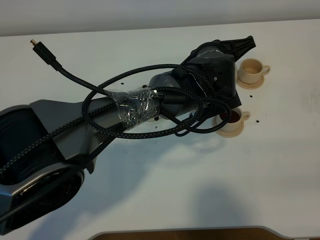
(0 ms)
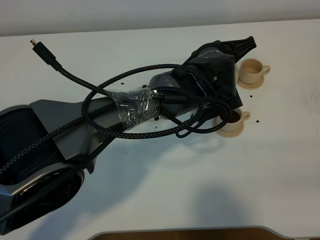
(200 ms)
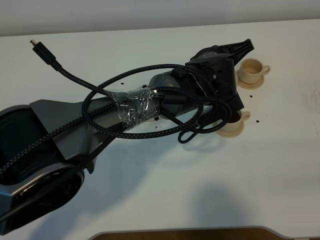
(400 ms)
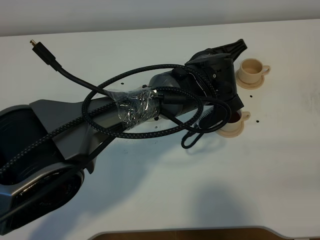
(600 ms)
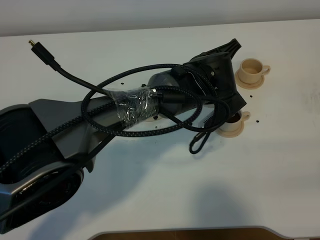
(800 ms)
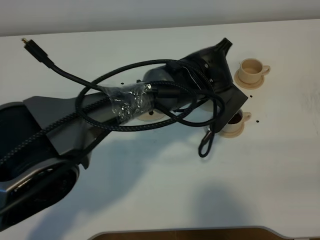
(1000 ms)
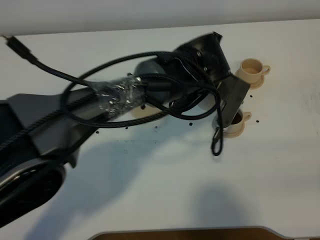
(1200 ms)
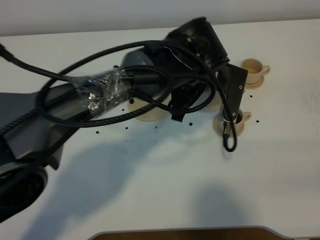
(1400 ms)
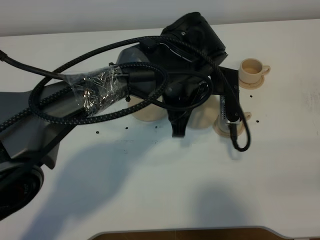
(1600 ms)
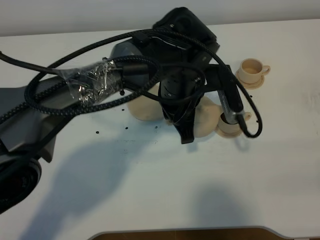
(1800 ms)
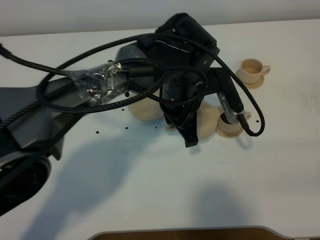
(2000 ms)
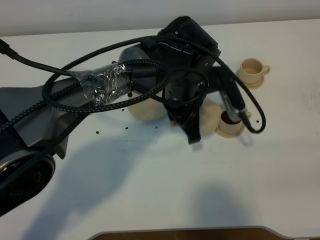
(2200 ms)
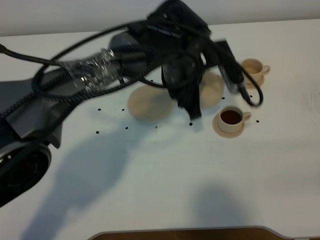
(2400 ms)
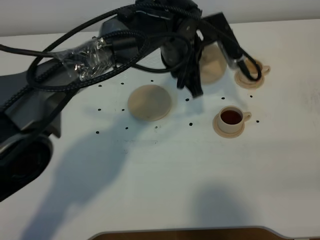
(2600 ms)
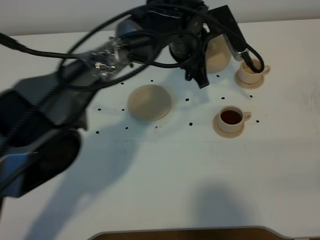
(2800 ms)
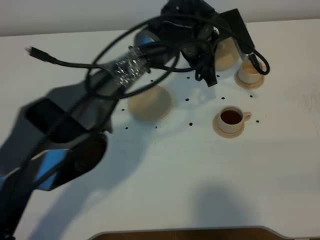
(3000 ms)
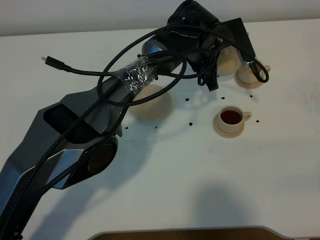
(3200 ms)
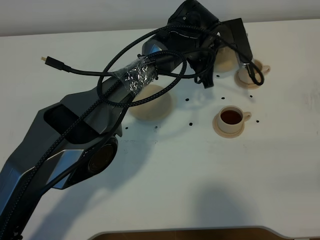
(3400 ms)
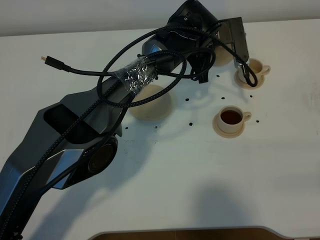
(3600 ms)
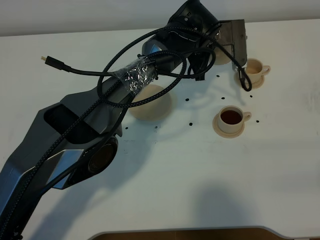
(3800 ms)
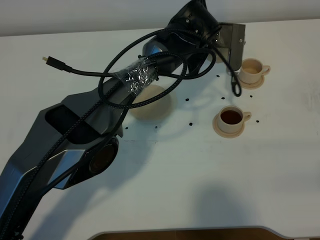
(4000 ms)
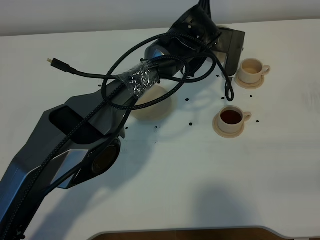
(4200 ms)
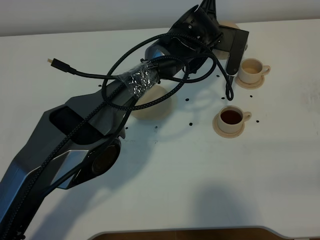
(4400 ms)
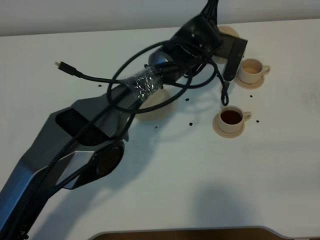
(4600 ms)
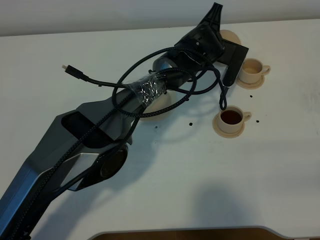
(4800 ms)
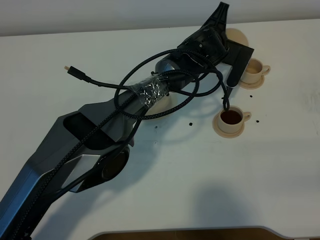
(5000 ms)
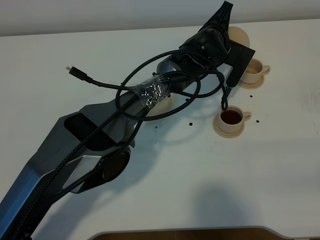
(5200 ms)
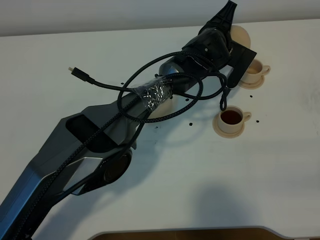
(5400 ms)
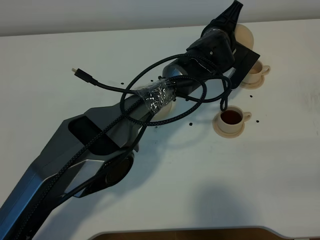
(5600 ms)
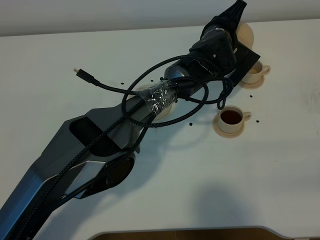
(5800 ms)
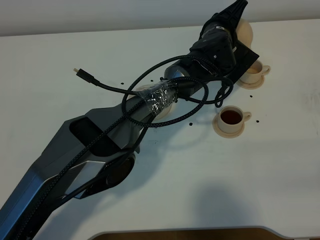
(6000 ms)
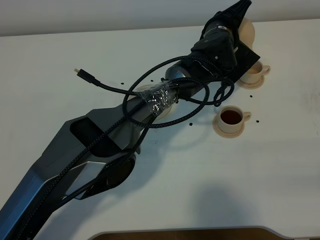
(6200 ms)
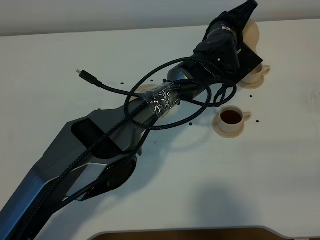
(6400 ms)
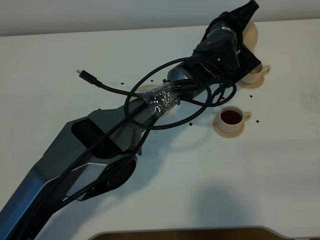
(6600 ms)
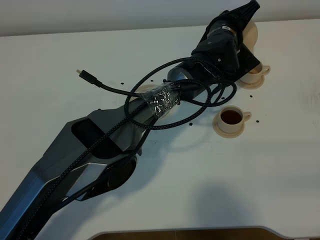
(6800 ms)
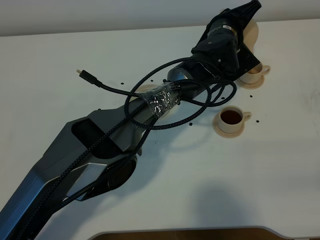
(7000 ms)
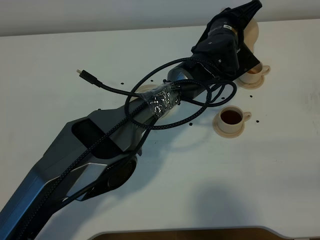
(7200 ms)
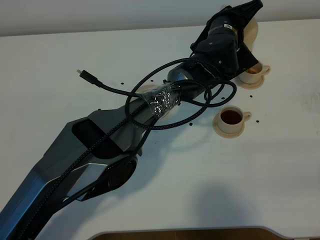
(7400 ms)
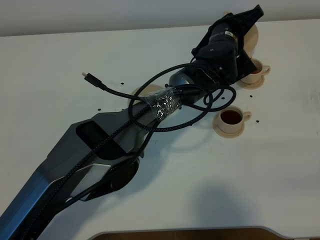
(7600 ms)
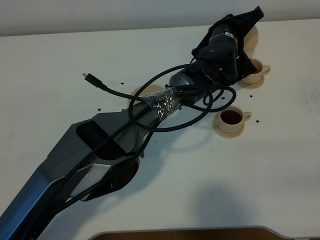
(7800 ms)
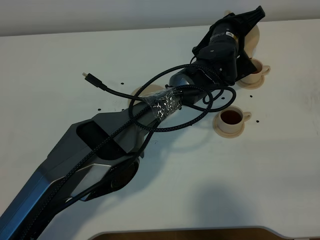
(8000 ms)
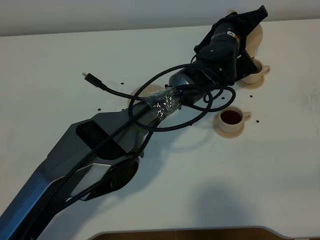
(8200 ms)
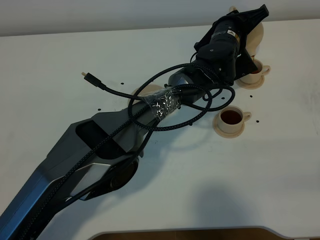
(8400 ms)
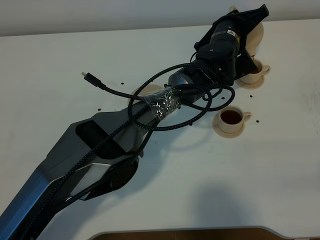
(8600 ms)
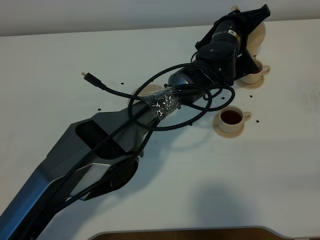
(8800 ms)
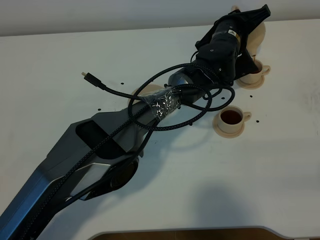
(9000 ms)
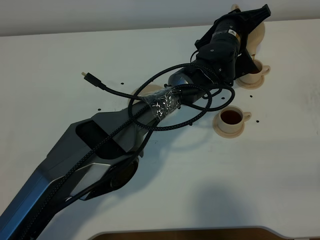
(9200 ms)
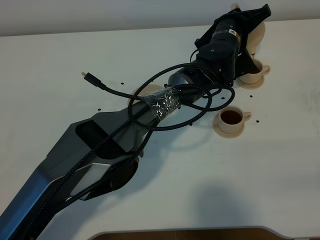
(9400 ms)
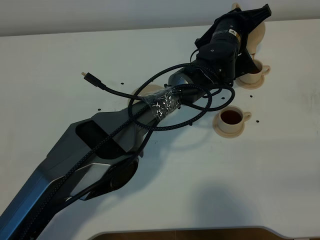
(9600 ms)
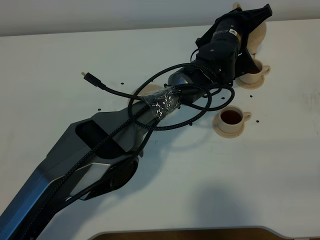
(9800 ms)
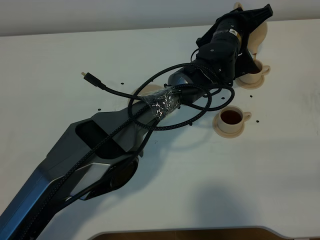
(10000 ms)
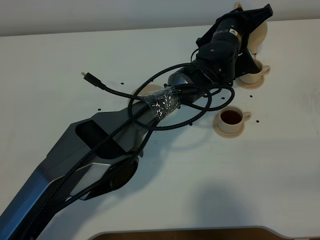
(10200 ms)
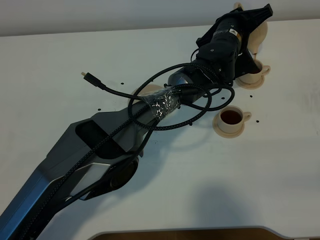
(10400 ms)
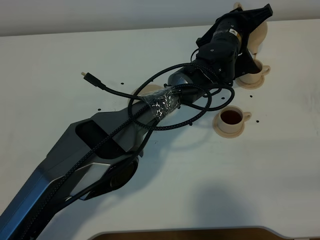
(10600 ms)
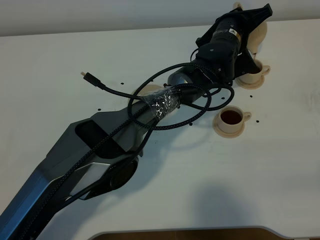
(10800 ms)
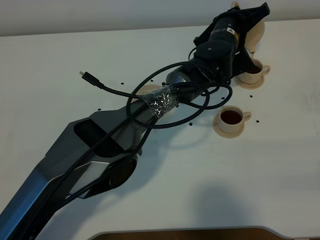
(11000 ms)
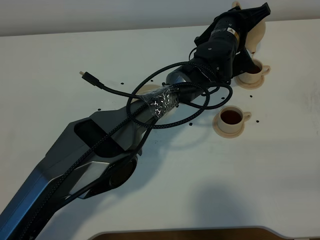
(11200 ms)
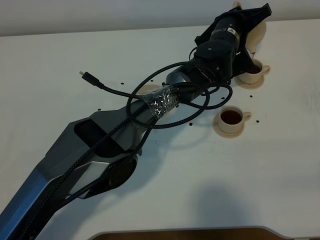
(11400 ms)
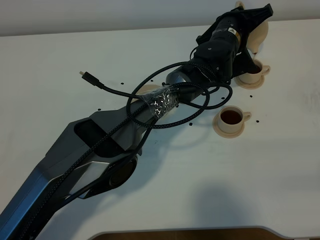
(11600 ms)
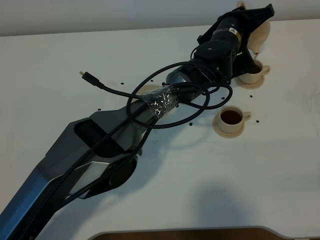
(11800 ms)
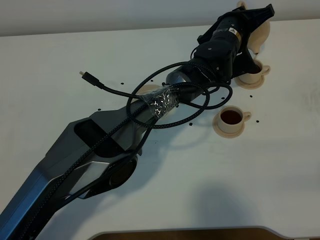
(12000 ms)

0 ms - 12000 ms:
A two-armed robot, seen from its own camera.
Task of the whole recording: grasp the brown teapot and pour the tea into the two brown teacups one by one, put the brown teapot back in its original place.
0 ms - 1600 ms: The left gripper heads to the left, covering approximately 5 cm.
1600 ms - 3000 ms: The left gripper moves forward, approximately 10 cm.
6000 ms - 7600 ms: The grippers move only a little.
7600 ms - 9000 ms: The grippers stay close to where they were, moving slightly.
9000 ms - 10400 ms: Neither gripper changes place.
10400 ms - 12000 ms: Both grippers stay about where they are.

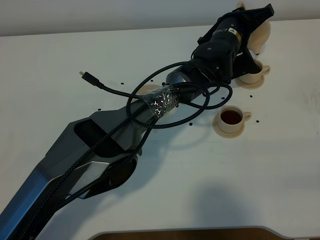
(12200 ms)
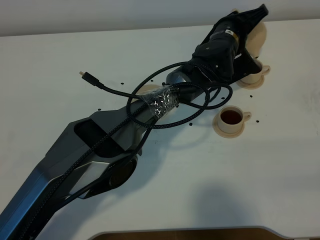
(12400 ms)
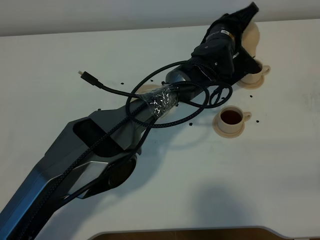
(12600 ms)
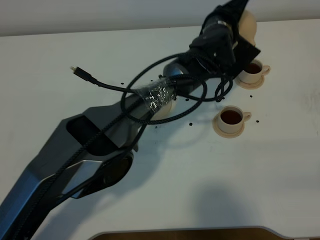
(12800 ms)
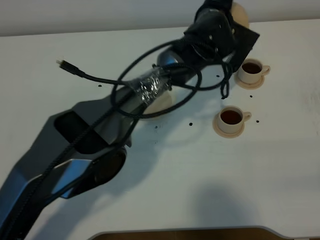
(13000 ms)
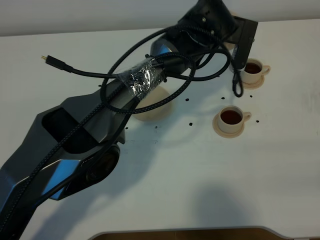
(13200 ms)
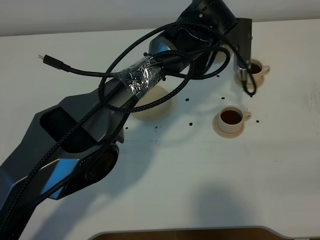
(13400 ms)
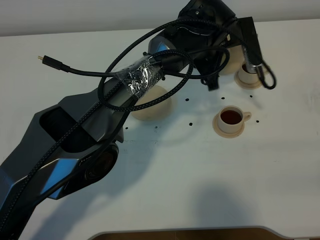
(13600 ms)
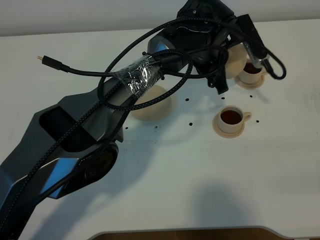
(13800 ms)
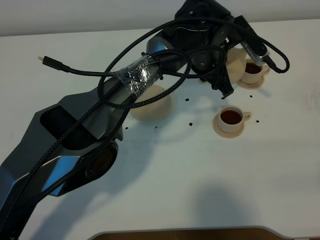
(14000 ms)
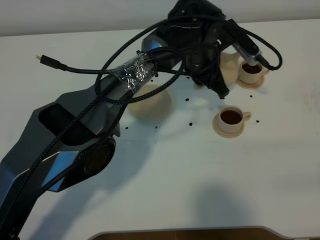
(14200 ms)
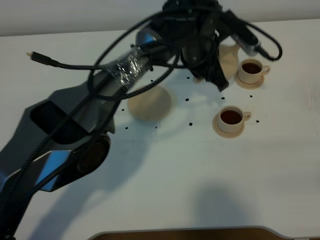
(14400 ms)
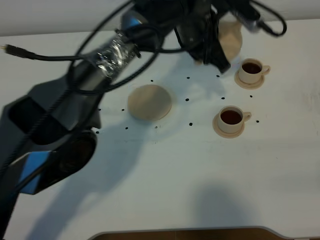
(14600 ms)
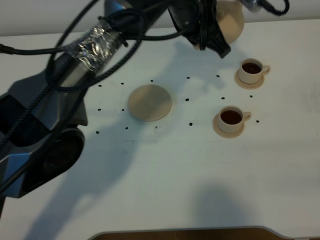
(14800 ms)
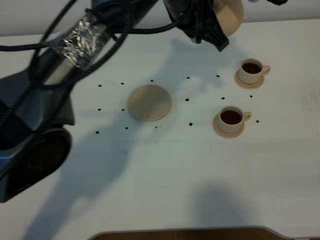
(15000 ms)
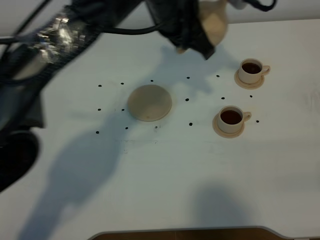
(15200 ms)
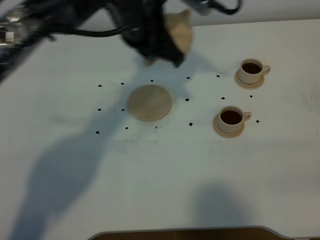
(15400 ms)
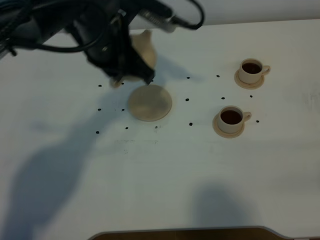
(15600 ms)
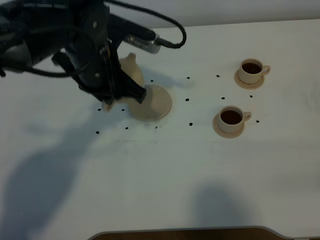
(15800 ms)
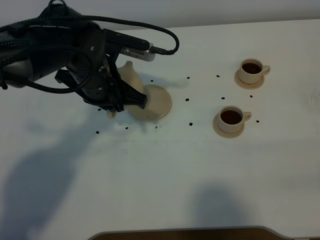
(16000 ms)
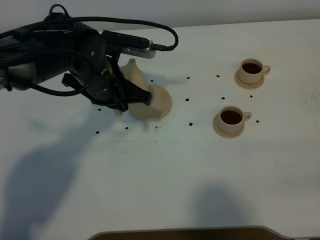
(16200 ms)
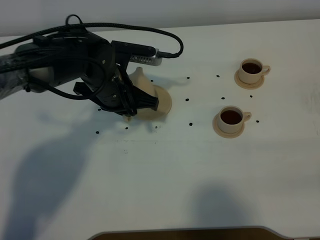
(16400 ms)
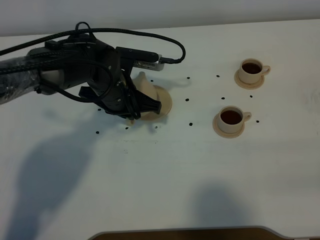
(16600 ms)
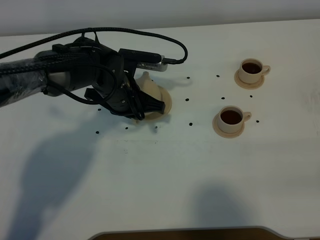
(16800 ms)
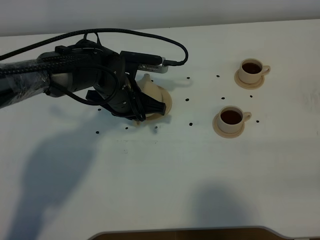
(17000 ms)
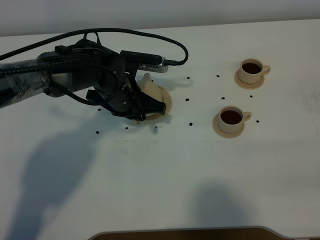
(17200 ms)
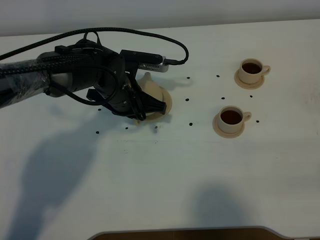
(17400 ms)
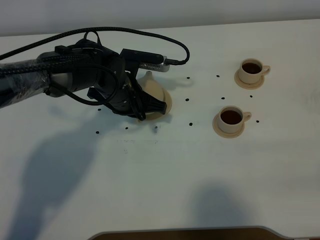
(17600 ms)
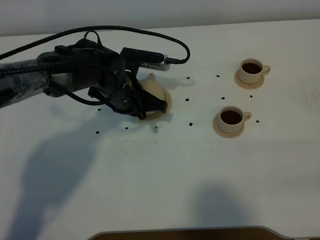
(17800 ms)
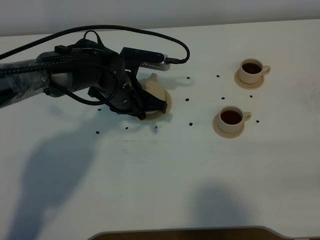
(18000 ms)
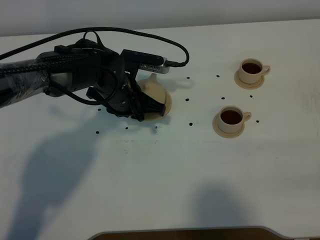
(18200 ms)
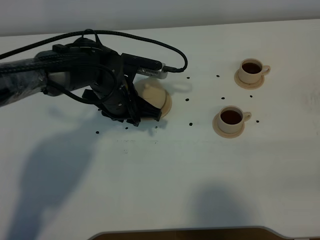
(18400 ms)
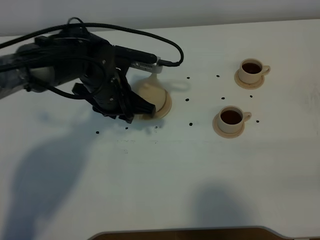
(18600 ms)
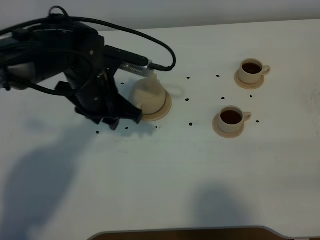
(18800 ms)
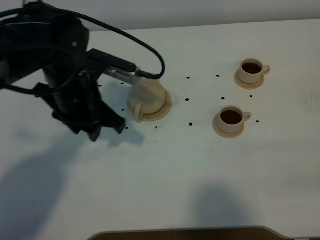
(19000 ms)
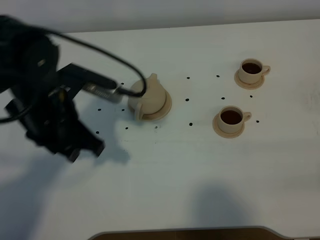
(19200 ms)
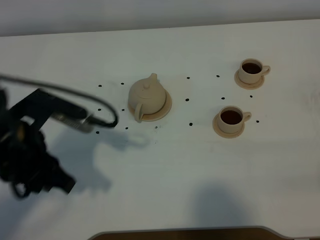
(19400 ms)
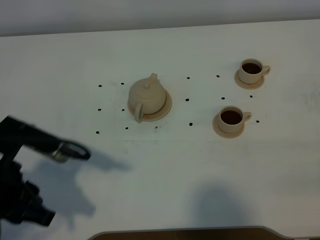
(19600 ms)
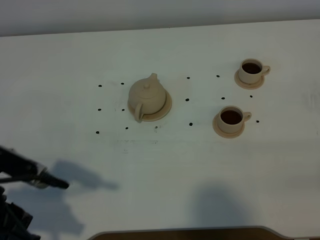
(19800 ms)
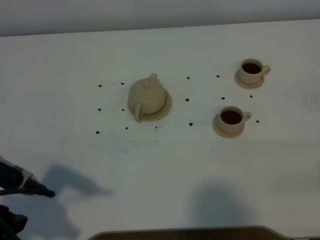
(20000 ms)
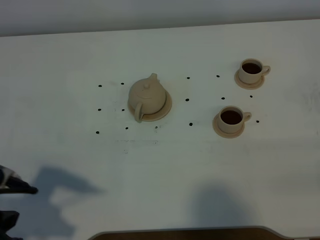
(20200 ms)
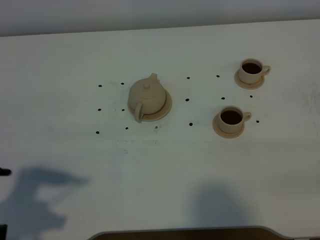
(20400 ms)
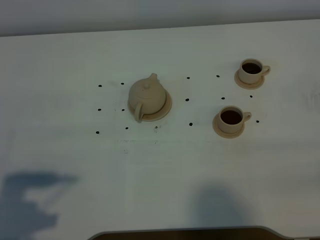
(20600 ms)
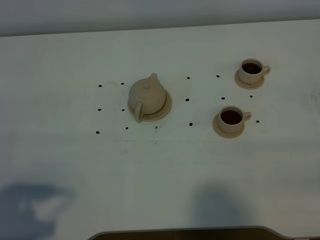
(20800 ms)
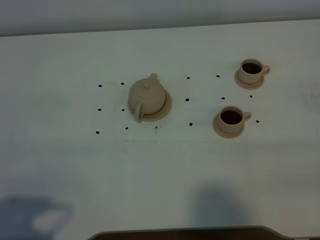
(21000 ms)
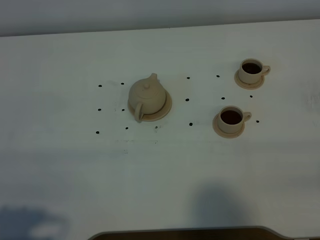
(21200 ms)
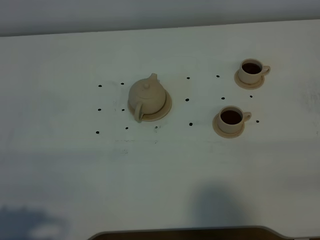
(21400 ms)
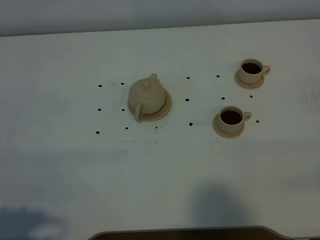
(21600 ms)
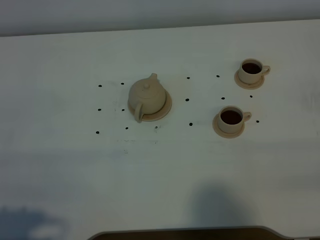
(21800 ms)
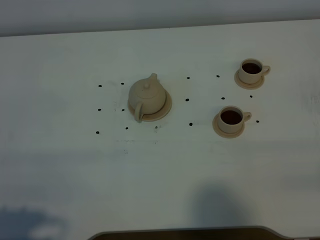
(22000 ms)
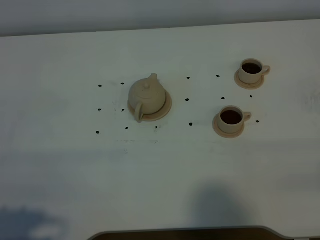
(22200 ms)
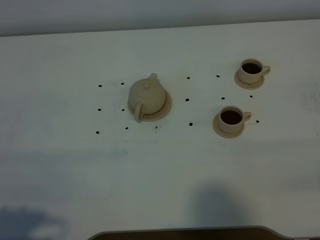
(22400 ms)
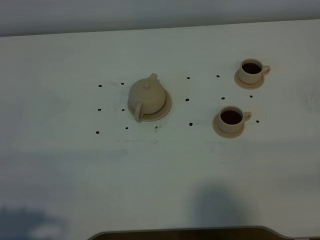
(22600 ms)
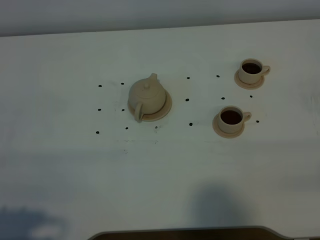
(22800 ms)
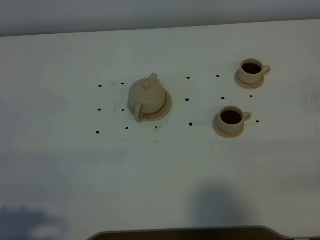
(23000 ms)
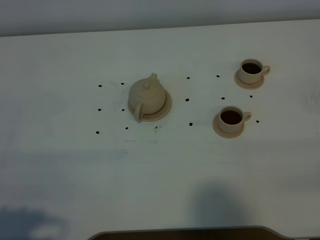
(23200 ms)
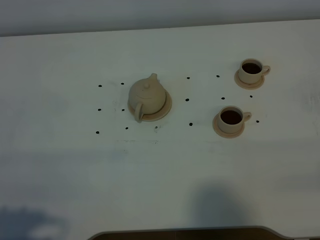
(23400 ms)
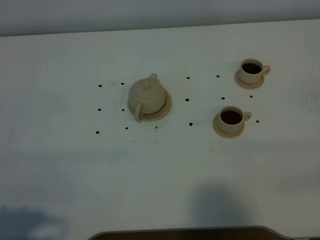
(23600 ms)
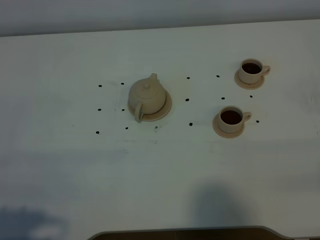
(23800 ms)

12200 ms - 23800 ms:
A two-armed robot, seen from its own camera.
Task of the whole recording: grasp the brown teapot and pour the tea into the two brown teacups one by one, put the brown teapot back in its original place.
12200 ms - 13600 ms: The left gripper shifts by approximately 10 cm.
13600 ms - 15000 ms: The left gripper shifts some 10 cm upward.
15000 ms - 16600 ms: The left gripper heads downward and to the left, covering roughly 20 cm.
16600 ms - 18000 ms: The left gripper opens up.
18000 ms - 19400 ms: The left gripper moves backward, to the left and upward, approximately 25 cm.
19400 ms - 21000 ms: The left gripper moves backward and to the left, some 20 cm.
22400 ms - 23800 ms: Both grippers stay put.
